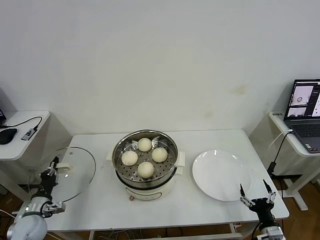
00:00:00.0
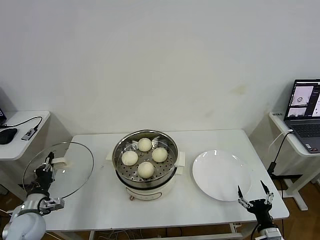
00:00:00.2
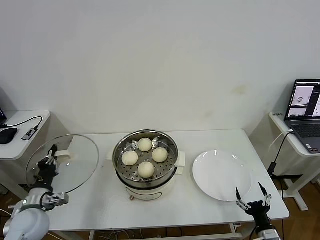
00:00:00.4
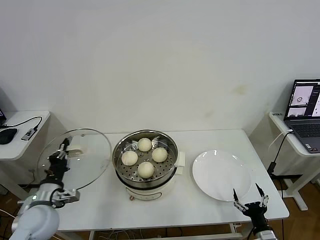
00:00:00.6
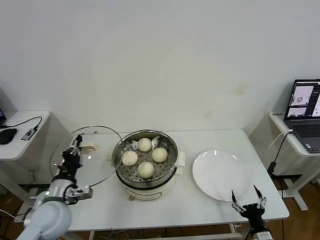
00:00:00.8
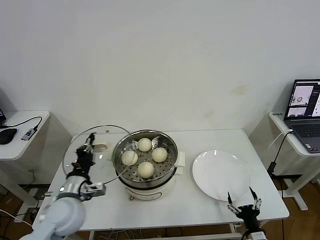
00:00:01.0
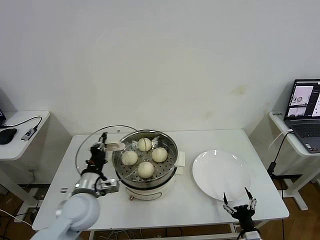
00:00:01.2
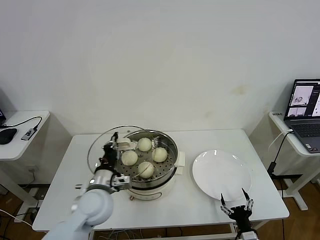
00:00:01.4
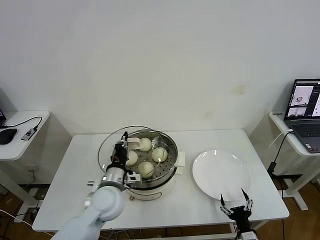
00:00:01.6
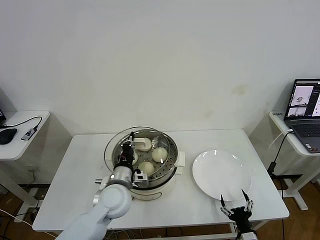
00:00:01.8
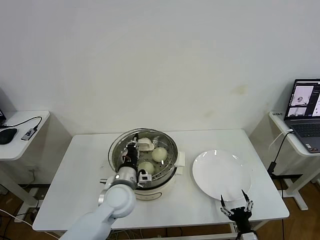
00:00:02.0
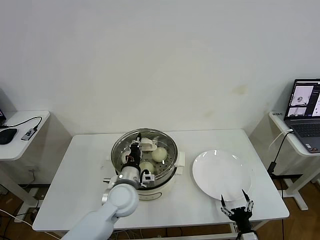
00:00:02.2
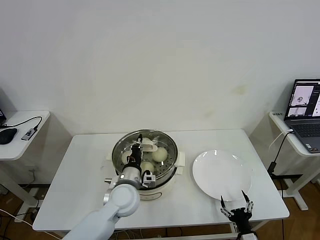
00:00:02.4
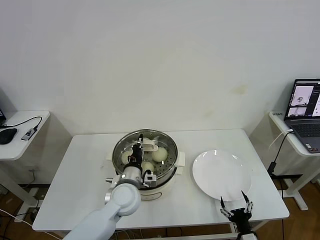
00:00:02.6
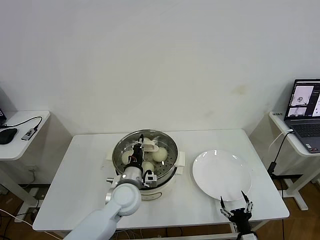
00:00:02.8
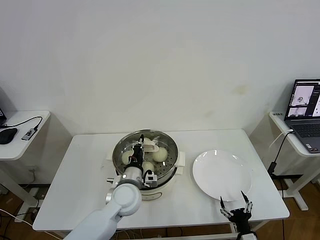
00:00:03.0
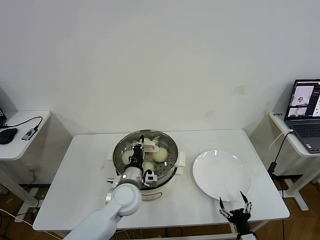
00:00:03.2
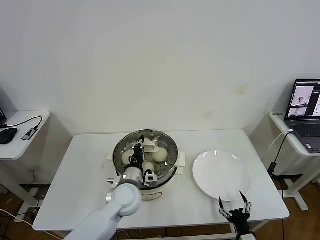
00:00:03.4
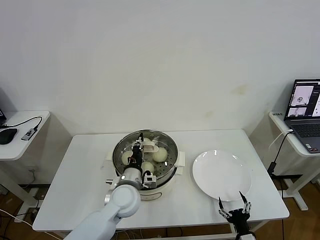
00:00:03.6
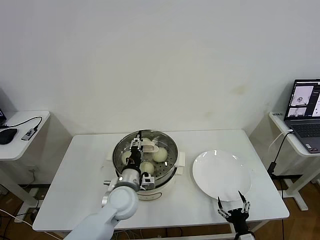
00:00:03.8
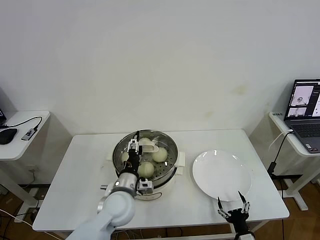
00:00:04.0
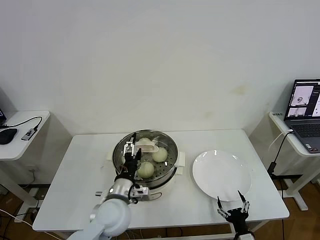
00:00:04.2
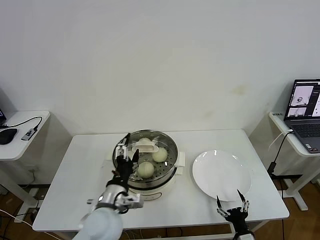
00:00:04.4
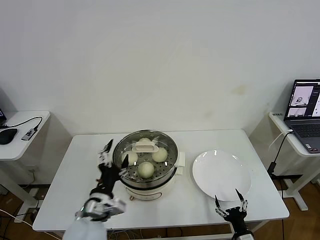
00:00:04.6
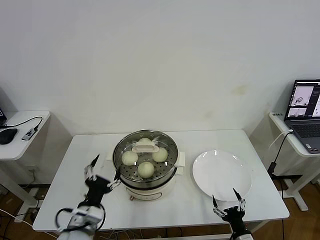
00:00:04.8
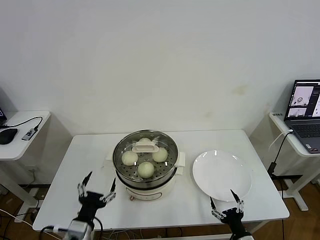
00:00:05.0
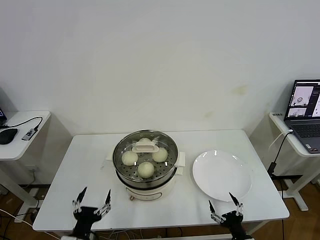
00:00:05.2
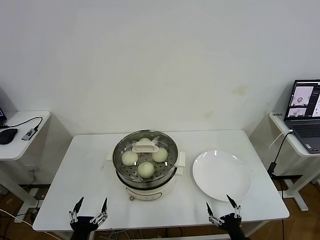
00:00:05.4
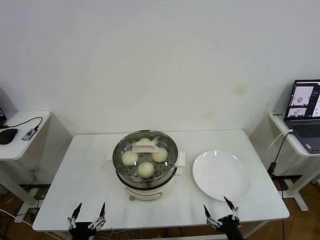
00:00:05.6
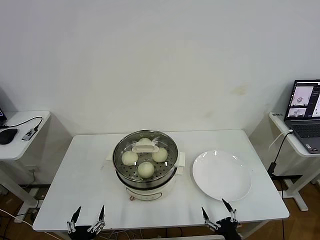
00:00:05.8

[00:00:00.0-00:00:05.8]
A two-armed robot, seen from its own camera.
Task of the whole recording: take steamed baozi put them in steamer then cover it.
Step, 00:00:00.0 to 00:00:04.2: Place the pot lid on the steamer with left gripper.
00:00:00.0 to 00:00:01.4: The right gripper shifts about 5 cm to the left; the left gripper is displaced to the right and upward by approximately 30 cm.
00:00:01.4 to 00:00:02.8: The left gripper shifts approximately 10 cm to the right.
00:00:02.8 to 00:00:04.4: The left gripper shifts approximately 10 cm backward, and opens its fingers.
00:00:04.4 to 00:00:05.8: The left gripper is displaced backward, to the left and downward by some 25 cm, while the right gripper shifts by about 5 cm.
